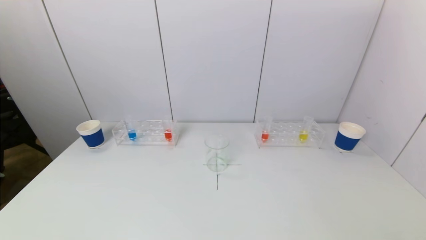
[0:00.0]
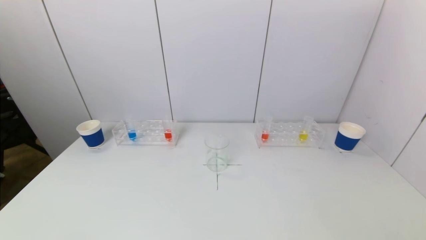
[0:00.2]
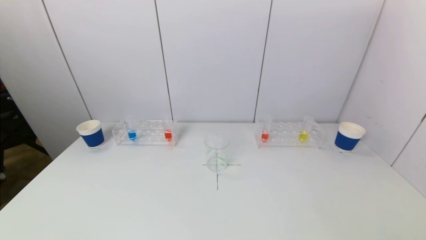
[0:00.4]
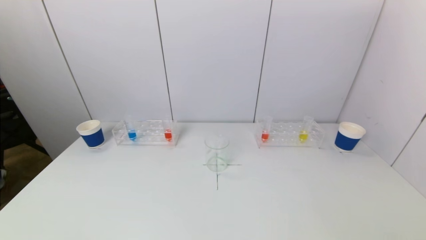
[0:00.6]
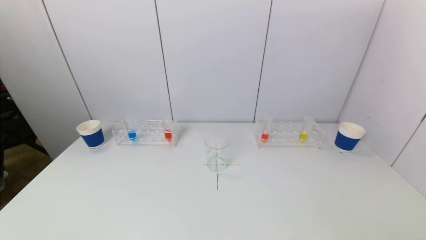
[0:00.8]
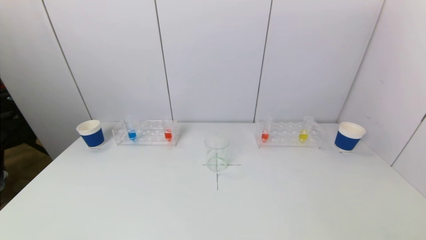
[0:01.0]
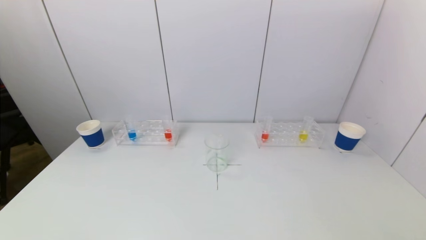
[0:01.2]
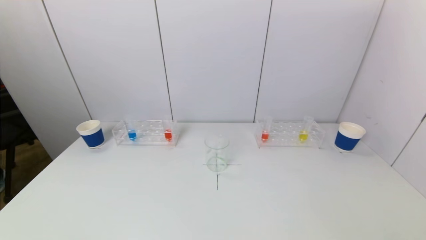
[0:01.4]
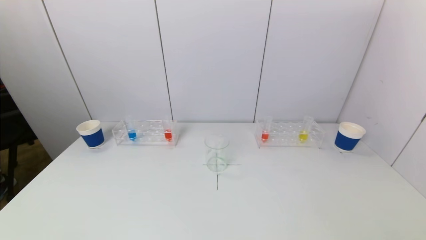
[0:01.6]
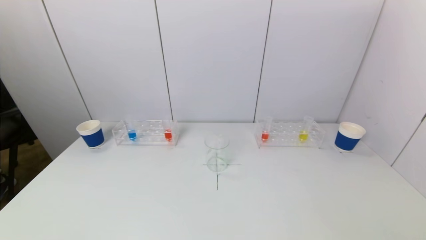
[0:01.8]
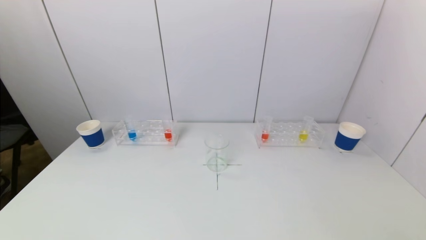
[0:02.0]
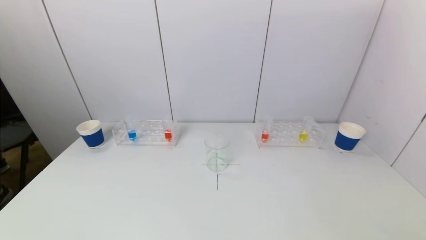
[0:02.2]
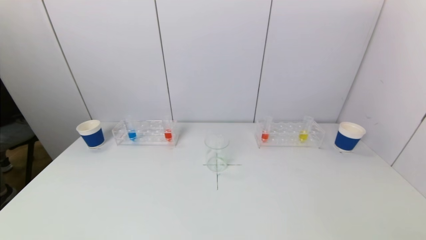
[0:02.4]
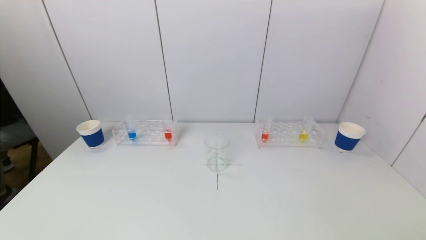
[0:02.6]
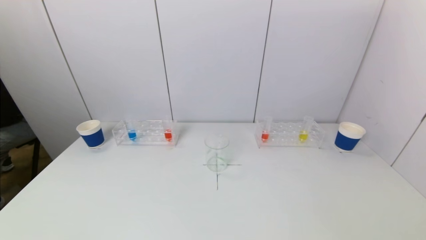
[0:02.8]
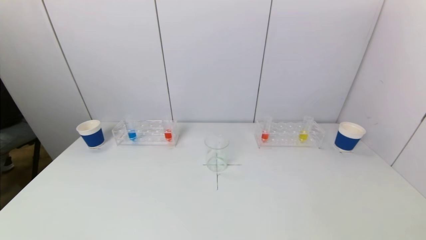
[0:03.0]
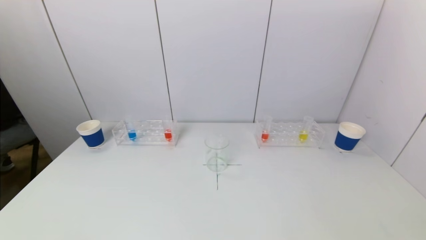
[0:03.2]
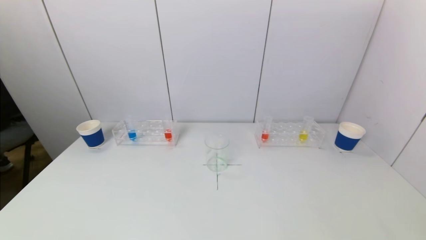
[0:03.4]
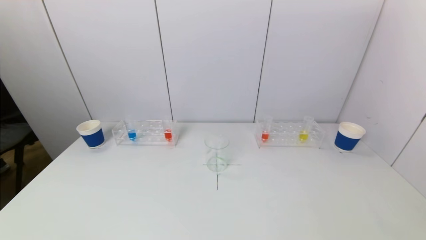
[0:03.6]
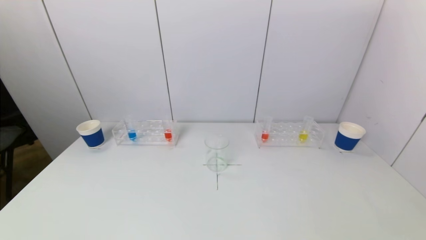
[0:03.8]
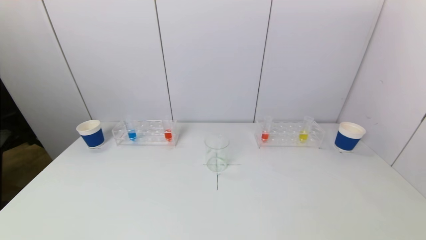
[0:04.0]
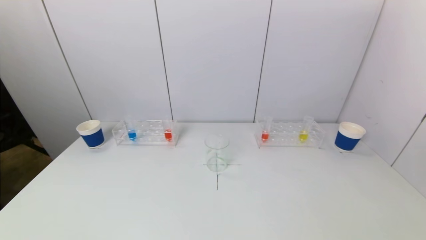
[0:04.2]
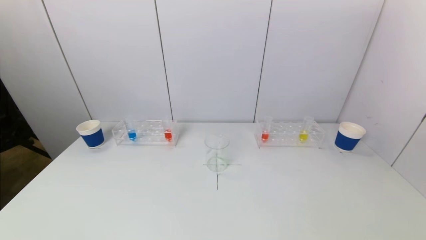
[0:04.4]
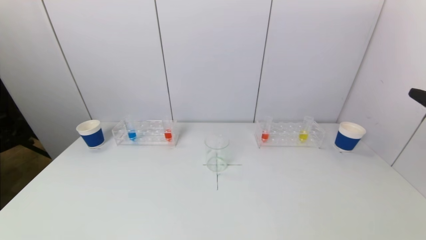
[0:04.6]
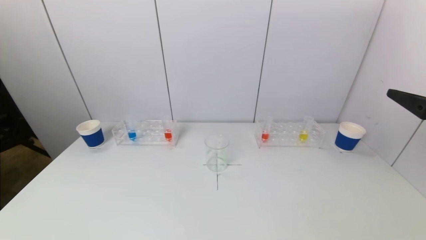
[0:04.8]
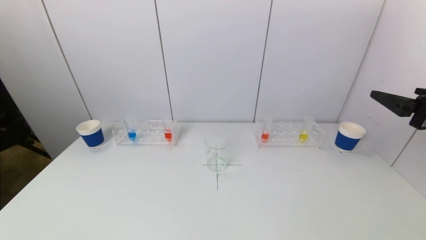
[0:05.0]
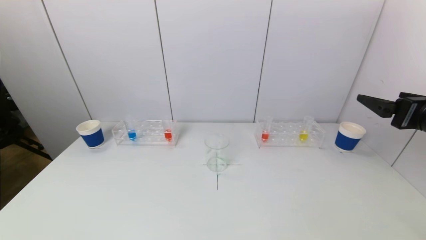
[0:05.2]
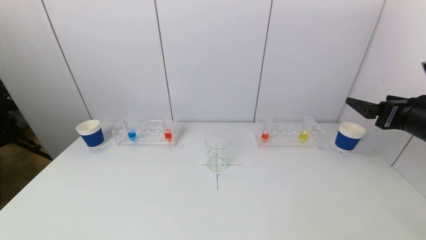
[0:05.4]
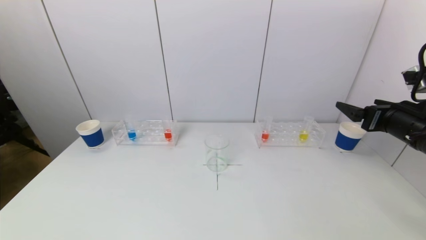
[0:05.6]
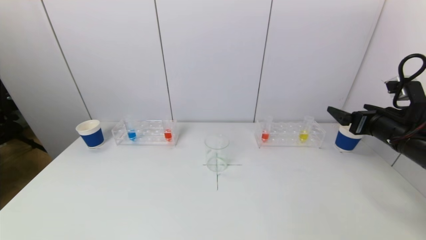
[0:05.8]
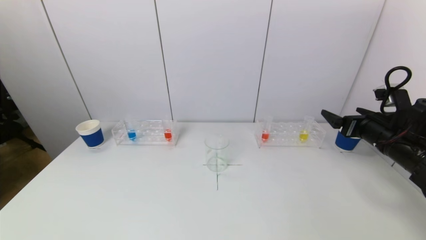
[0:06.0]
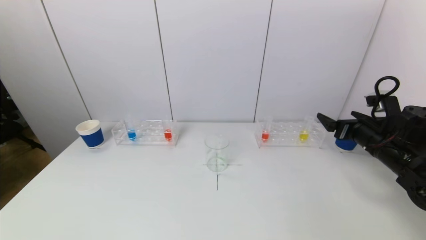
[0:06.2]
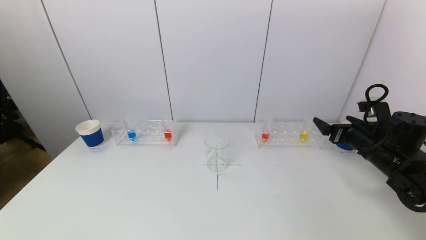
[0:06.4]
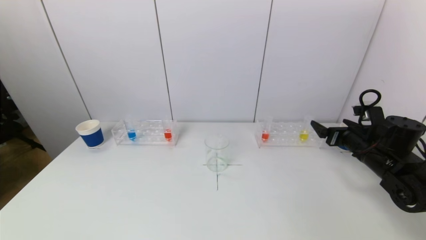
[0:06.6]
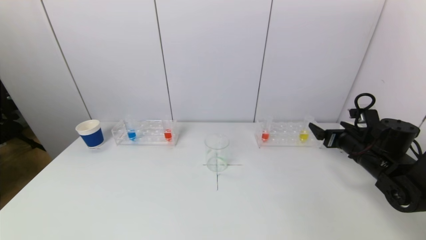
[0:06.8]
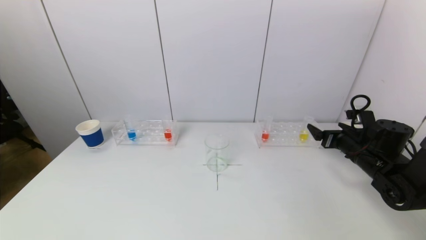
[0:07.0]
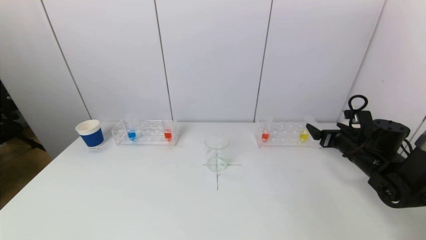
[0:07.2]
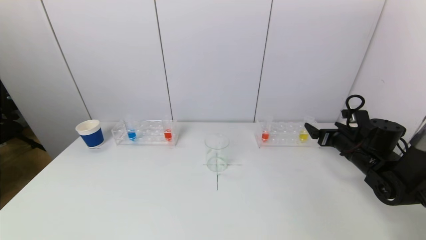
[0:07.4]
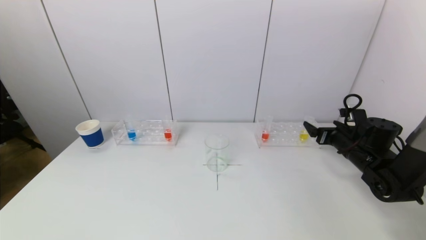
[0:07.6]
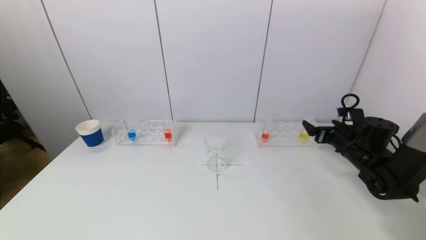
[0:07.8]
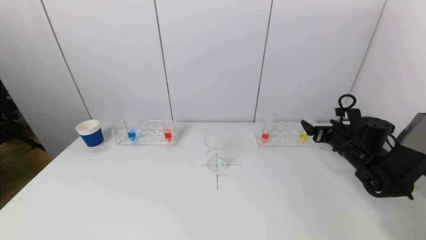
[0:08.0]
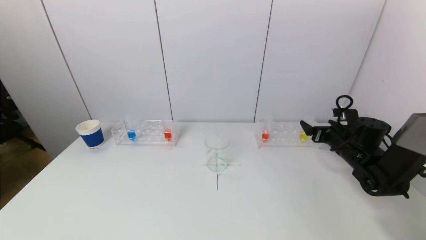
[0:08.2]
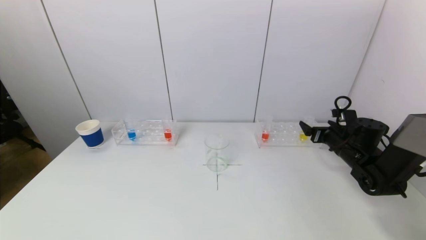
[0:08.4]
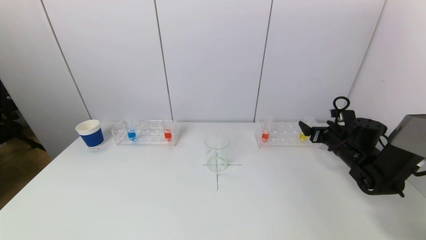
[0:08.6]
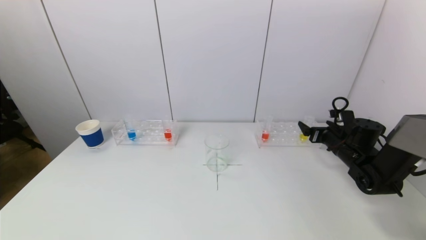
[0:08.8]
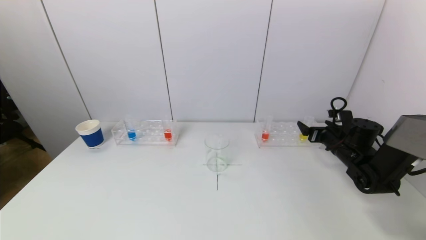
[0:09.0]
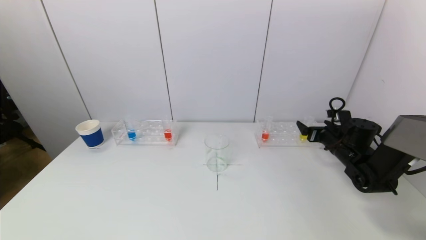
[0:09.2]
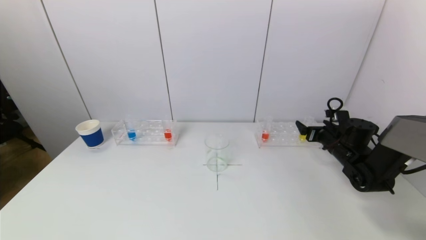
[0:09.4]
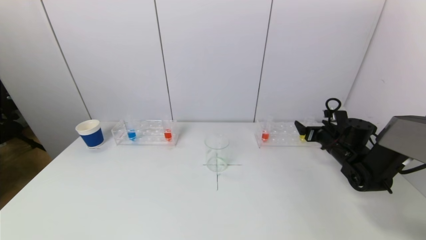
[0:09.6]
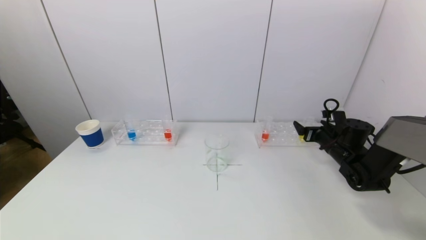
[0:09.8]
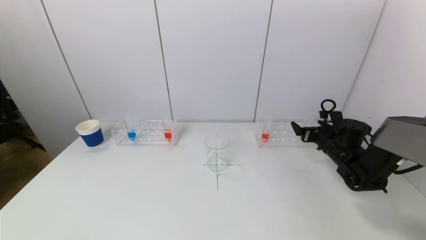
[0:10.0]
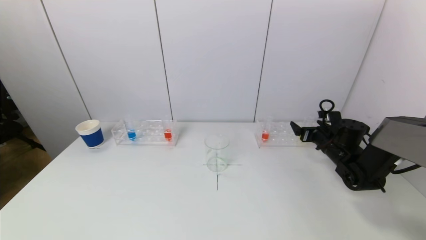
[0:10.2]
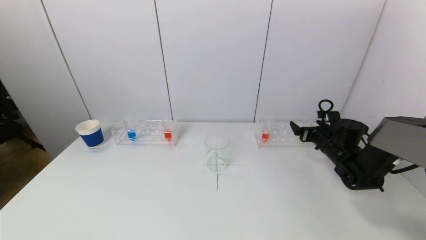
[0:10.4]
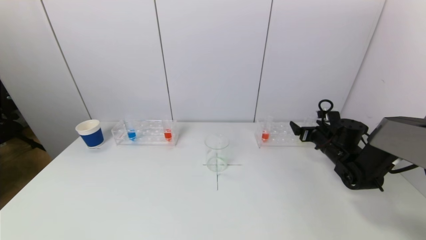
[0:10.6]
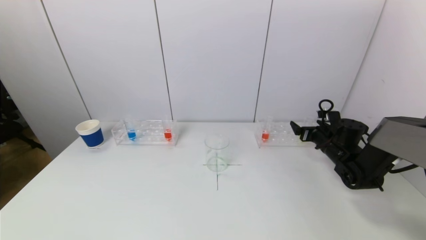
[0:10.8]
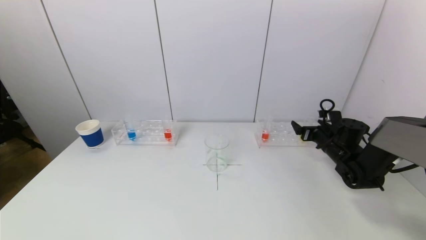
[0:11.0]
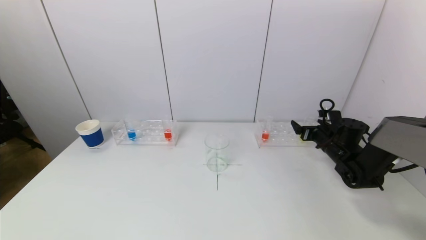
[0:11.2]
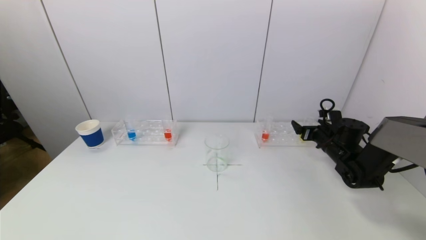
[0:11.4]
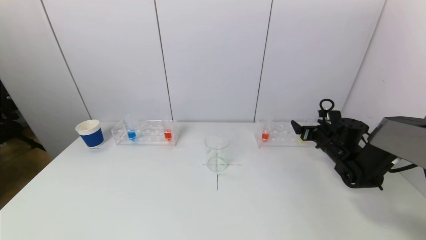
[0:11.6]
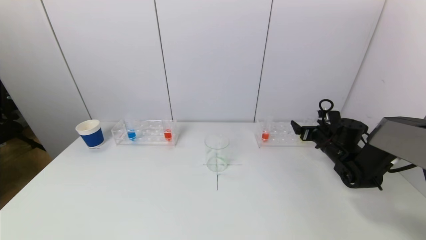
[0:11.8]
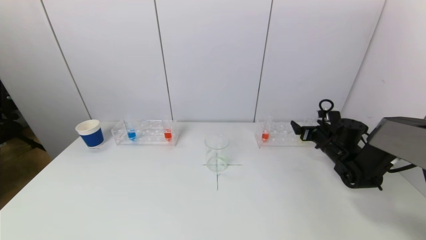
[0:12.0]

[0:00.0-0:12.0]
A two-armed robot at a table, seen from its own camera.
Task of the whole recording: pick up a test tube with pigment on left test tube rack and a test tube with pigment on right test tube rack by grippers and pour them into the beaker.
0:00.0 to 0:01.6: The two grippers keep their place.
0:04.4 to 0:06.0: The right gripper travels forward and downward by about 25 cm.
0:06.0 to 0:07.6: The right gripper moves downward and forward, about 10 cm.
0:07.6 to 0:09.0: The grippers stay close to where they were, moving slightly.
0:09.0 to 0:10.4: There are only small adjustments of the grippers.
0:10.4 to 0:12.0: Both grippers stay put.

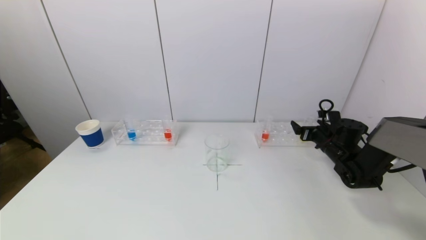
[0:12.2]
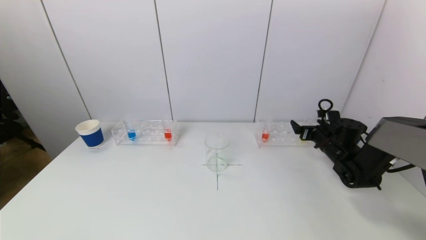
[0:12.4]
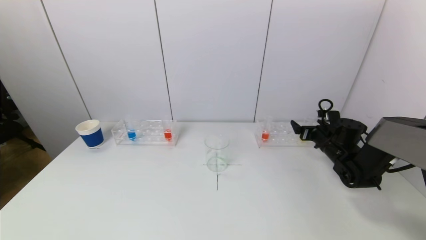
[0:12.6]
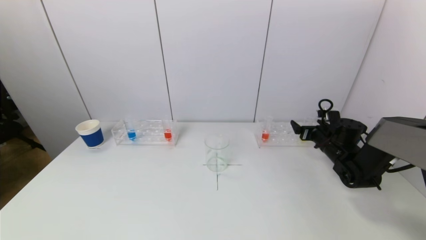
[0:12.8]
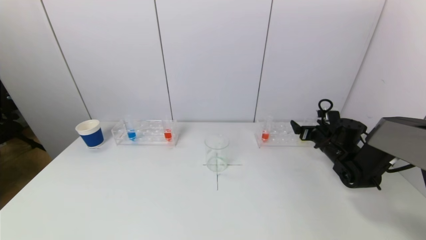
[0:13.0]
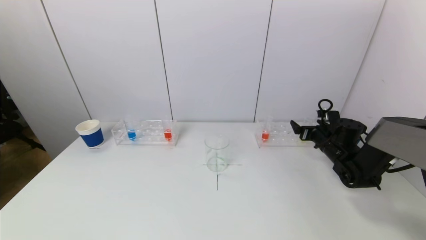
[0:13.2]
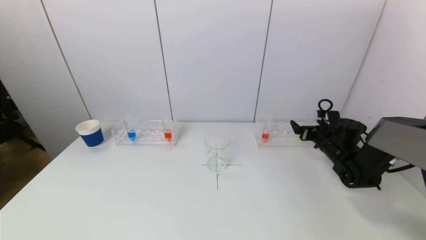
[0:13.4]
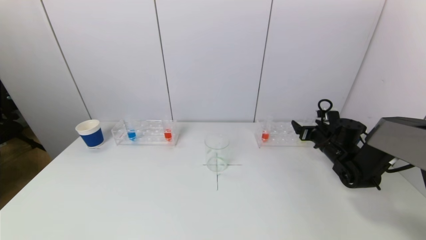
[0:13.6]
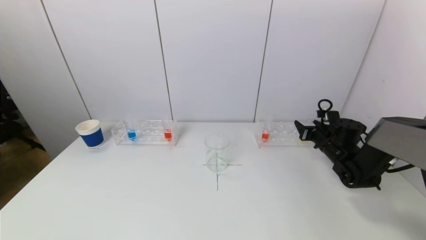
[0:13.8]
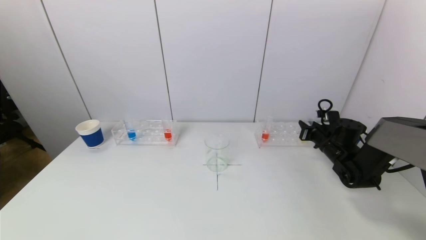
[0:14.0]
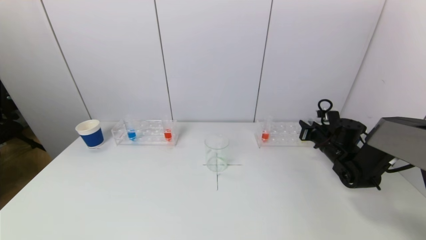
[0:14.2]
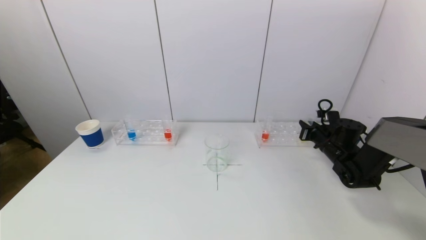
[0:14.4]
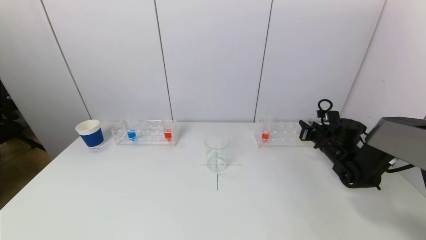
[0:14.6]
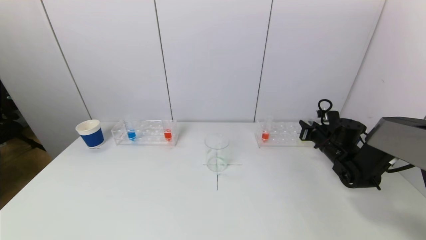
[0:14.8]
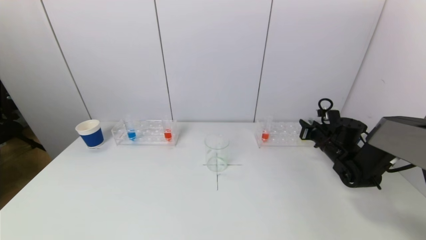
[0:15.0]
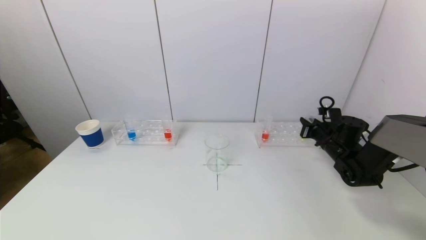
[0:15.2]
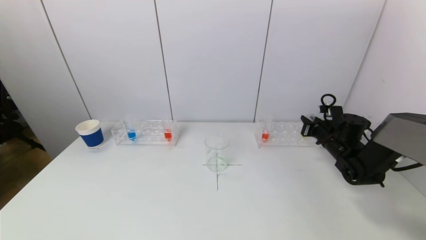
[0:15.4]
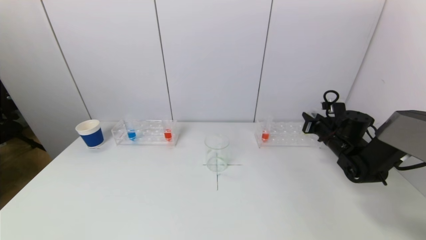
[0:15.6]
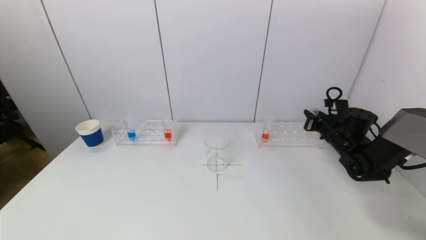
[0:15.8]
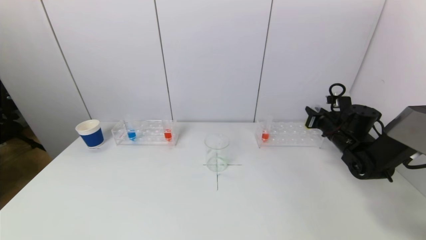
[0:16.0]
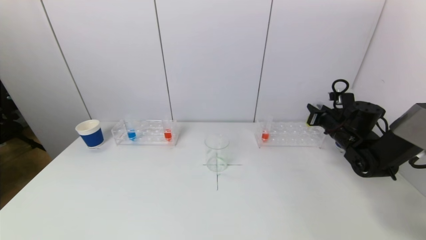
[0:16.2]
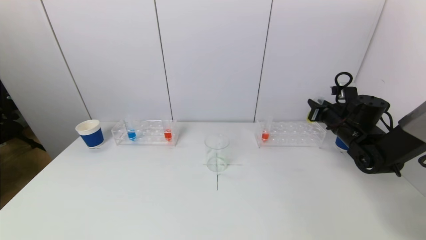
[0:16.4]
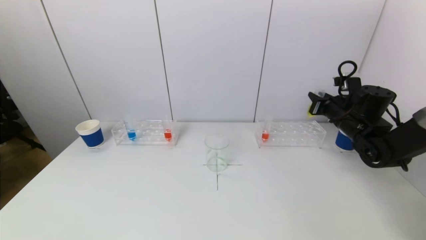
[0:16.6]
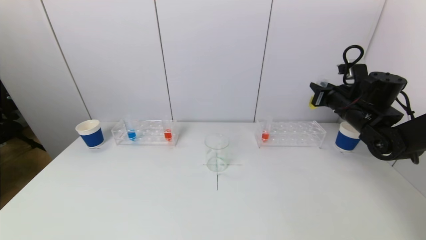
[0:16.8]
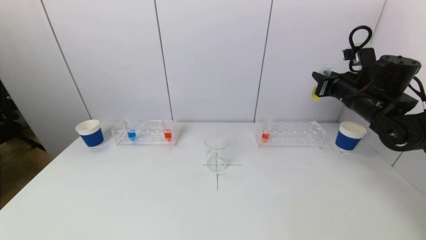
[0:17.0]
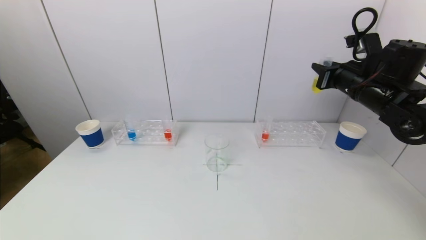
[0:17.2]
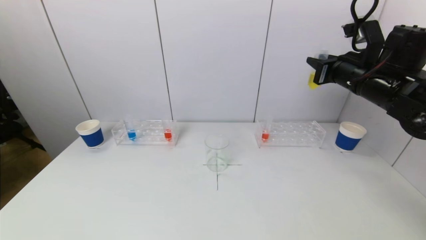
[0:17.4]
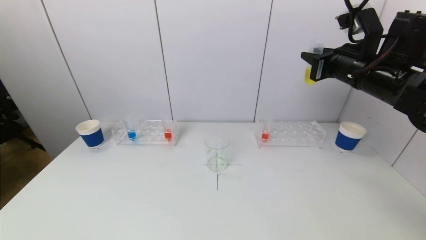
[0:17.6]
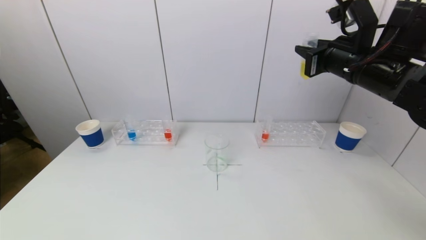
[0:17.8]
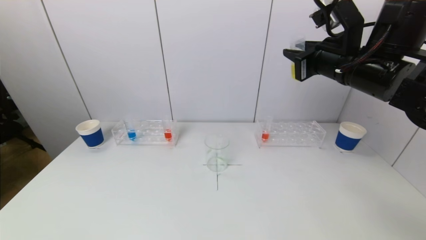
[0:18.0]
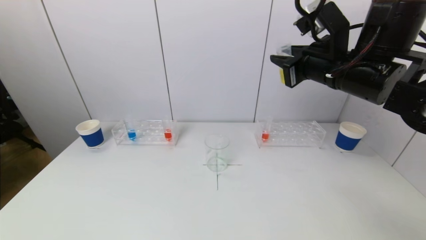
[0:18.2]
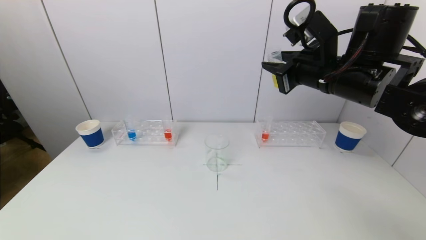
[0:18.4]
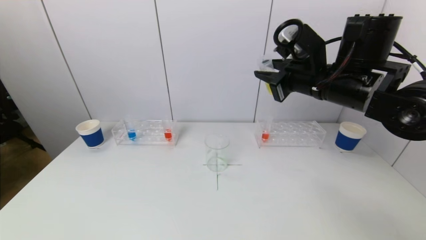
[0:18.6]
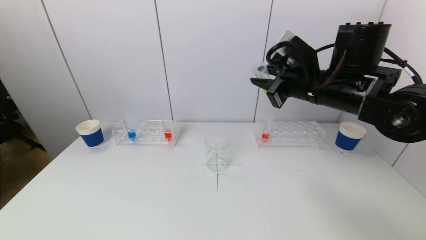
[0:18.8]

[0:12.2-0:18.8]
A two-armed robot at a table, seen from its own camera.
Task of the whole recording: pick up a test tube with pigment on left test tube rack and a test tube with pigment on right test tube rack by grippers and pour them into the beaker.
0:12.2 to 0:13.8: The right gripper closes up.
0:13.8 to 0:15.4: The right gripper closes.
0:15.4 to 0:17.2: The right gripper moves upward, roughly 20 cm.
0:17.2 to 0:18.8: The right gripper heads to the left, covering approximately 10 cm.
